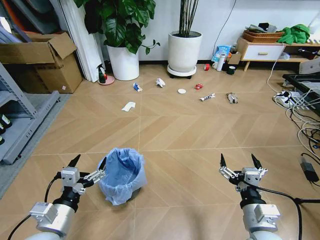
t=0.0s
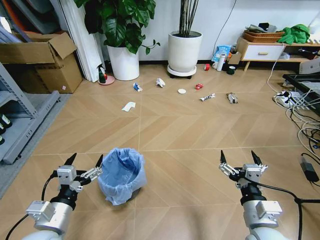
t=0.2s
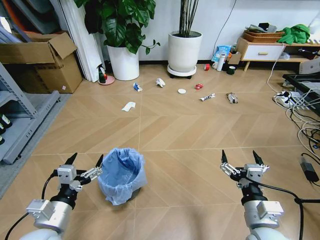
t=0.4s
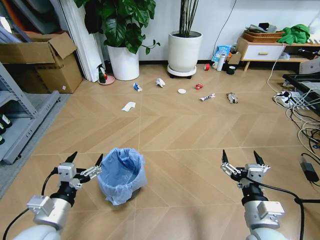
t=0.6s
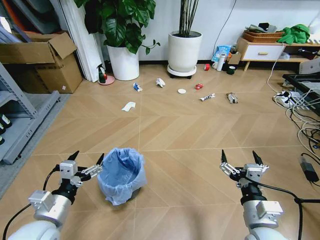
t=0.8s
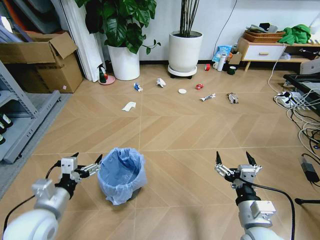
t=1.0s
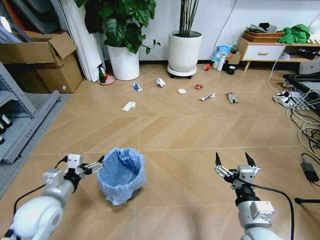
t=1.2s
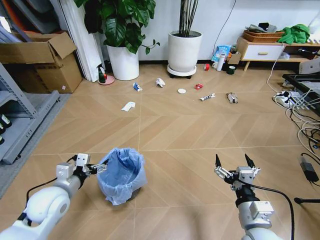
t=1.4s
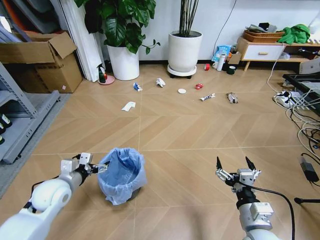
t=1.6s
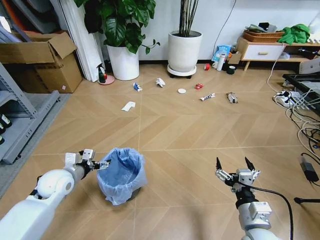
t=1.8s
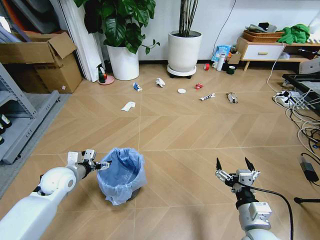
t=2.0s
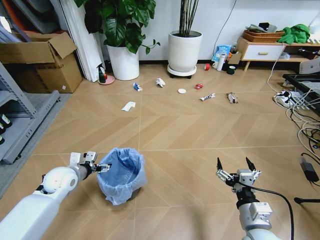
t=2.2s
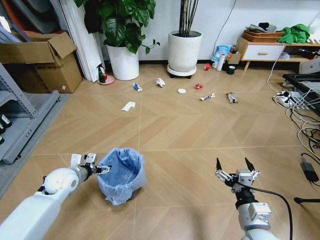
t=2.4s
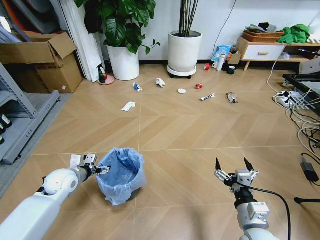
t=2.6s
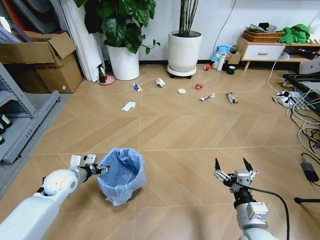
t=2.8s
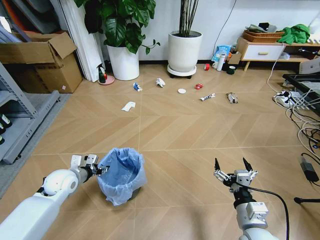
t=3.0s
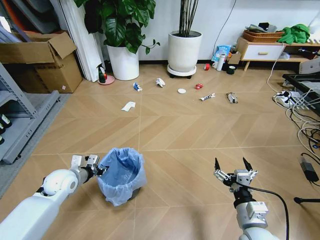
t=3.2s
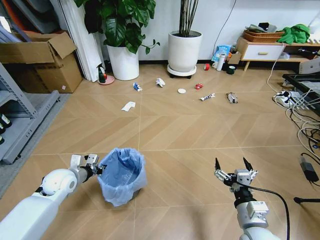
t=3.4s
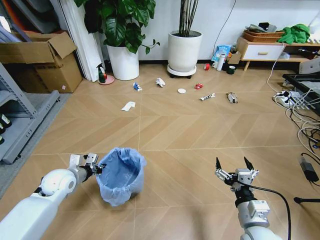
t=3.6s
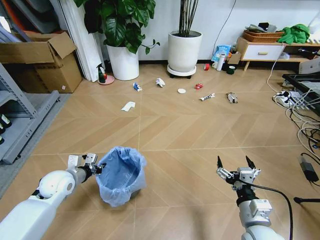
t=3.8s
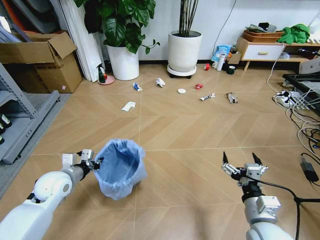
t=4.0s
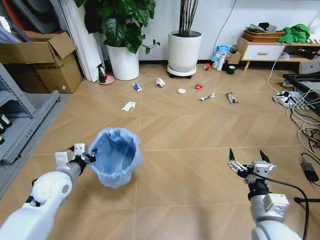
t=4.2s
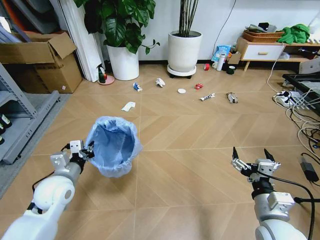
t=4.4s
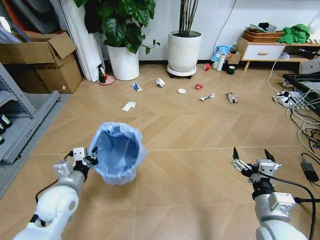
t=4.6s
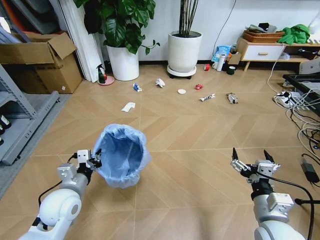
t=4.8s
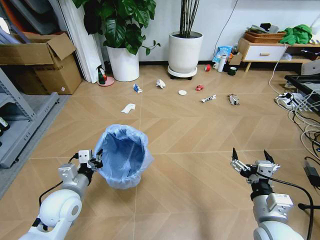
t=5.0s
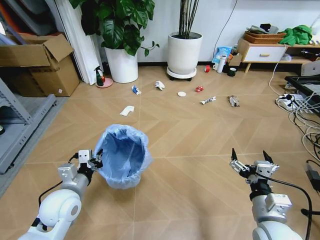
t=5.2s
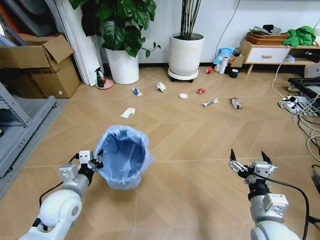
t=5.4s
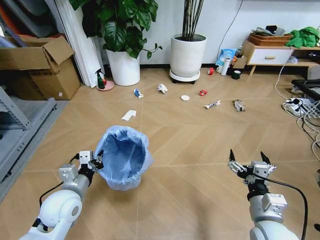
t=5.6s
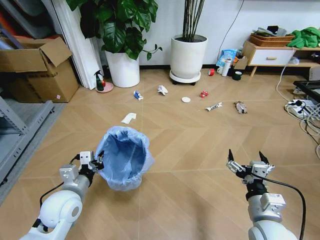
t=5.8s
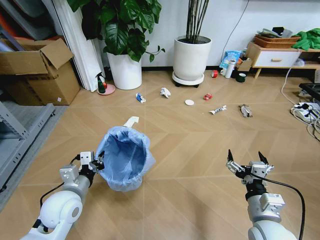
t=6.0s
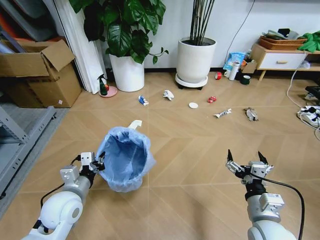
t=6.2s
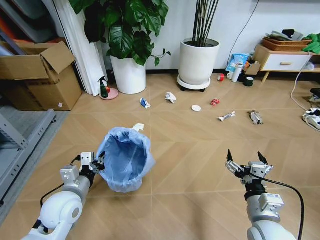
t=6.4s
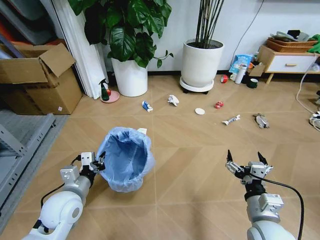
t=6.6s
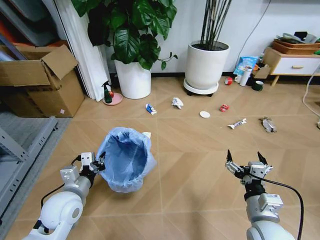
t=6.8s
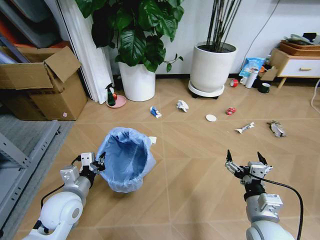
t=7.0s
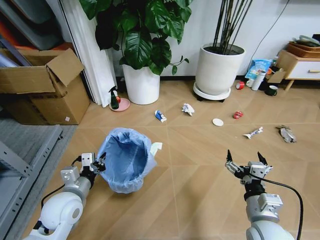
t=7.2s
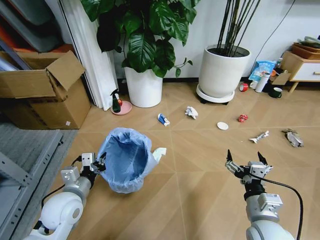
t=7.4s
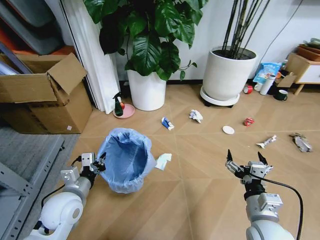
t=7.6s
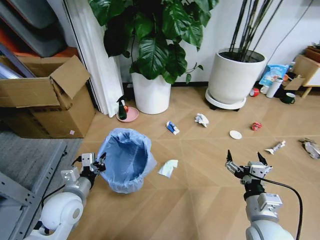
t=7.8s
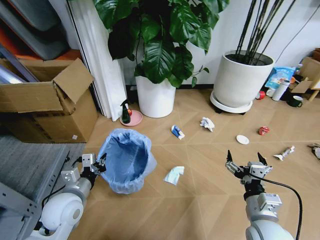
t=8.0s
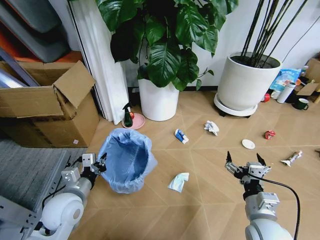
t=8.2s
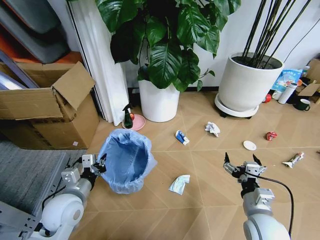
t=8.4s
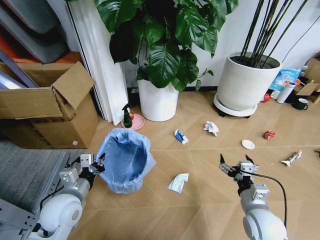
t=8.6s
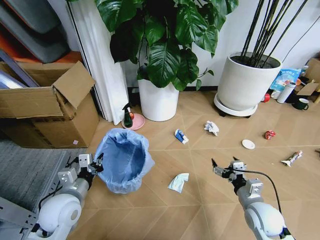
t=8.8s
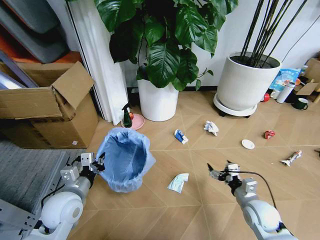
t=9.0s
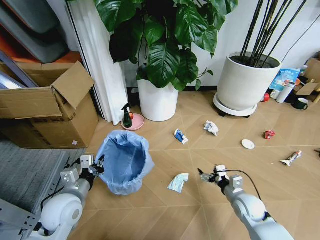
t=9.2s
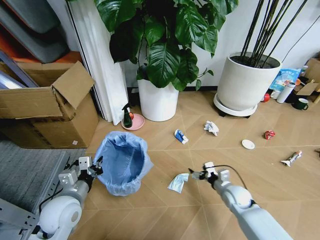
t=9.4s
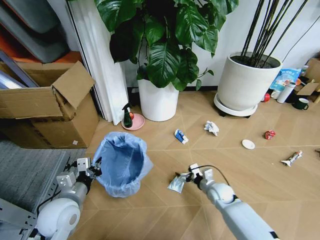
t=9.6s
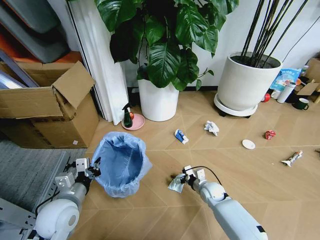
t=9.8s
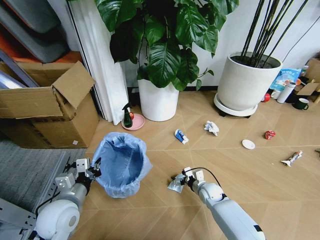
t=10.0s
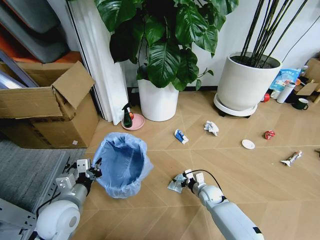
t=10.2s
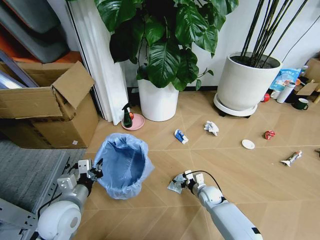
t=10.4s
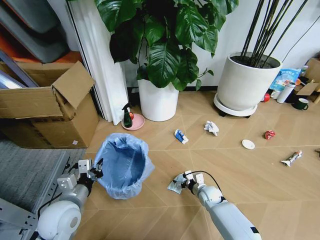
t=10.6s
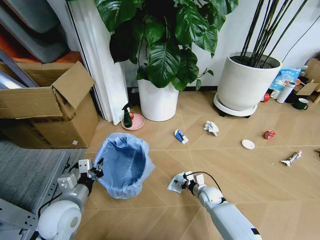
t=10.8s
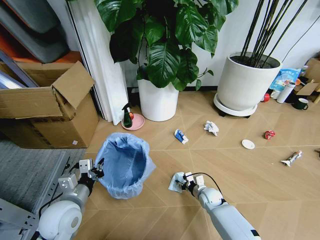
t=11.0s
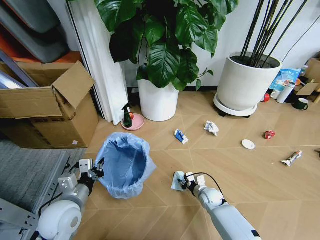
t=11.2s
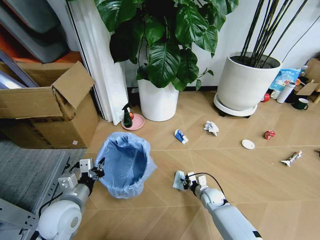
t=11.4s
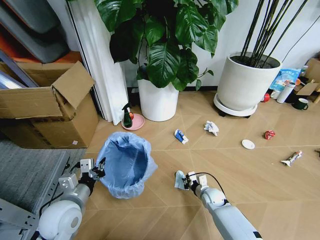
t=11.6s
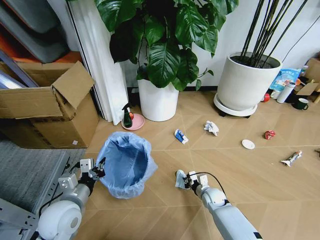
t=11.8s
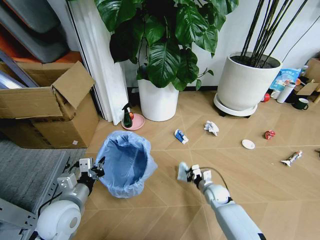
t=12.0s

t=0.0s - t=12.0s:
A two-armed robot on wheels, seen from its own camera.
Task of the whole recording: Pick up the trash bin and place the garbage on the floor into it.
t=1.6s - t=3.0s: The left gripper travels forward by about 5 cm, and closes.
t=3.0s - t=4.4s: The left gripper moves upward and backward, approximately 10 cm, and closes; the right gripper moves roughly 5 cm.
t=4.4s - t=6.0s: The left gripper shifts by approximately 5 cm.
t=7.6s - t=9.0s: The right gripper moves downward, forward and to the right, some 15 cm.
t=9.0s - t=10.4s: The right gripper shifts about 20 cm downward, to the left and forward.
t=10.4s - t=12.0s: The right gripper closes up.

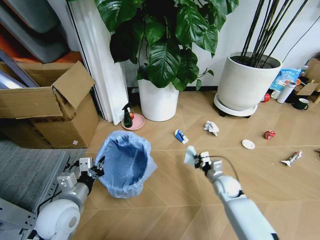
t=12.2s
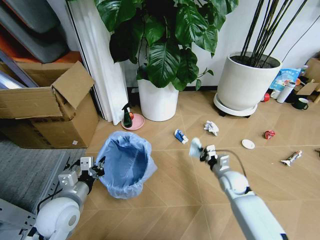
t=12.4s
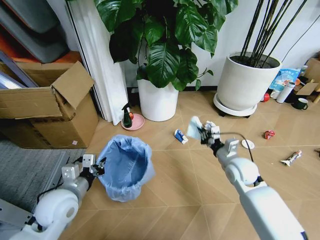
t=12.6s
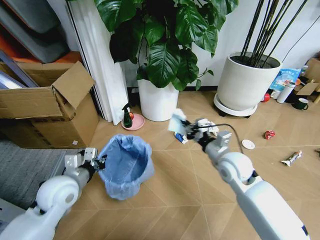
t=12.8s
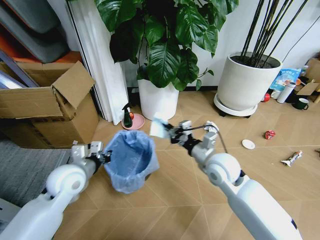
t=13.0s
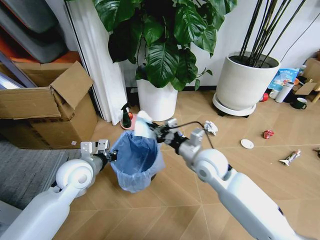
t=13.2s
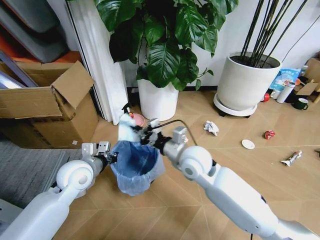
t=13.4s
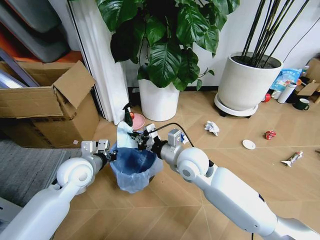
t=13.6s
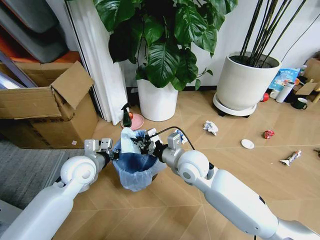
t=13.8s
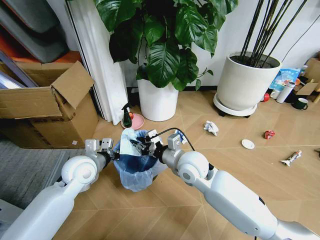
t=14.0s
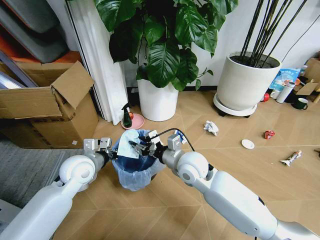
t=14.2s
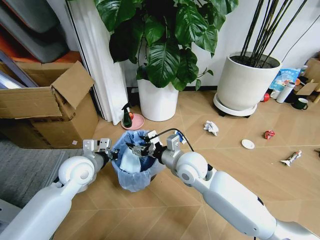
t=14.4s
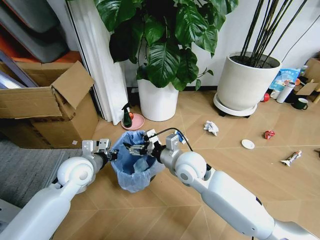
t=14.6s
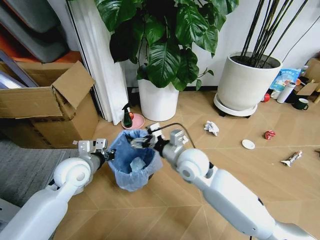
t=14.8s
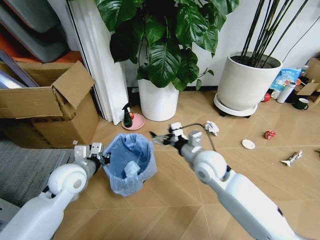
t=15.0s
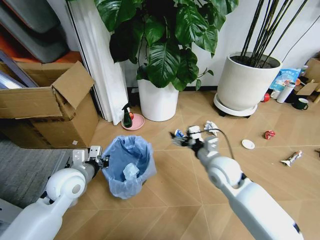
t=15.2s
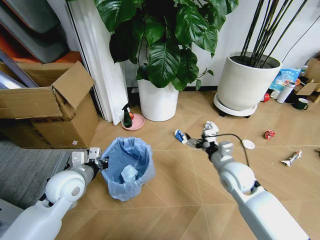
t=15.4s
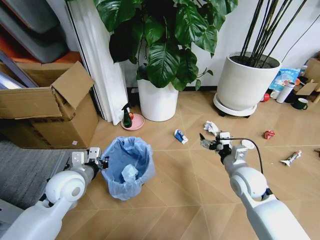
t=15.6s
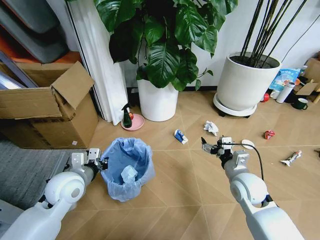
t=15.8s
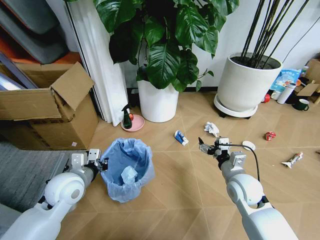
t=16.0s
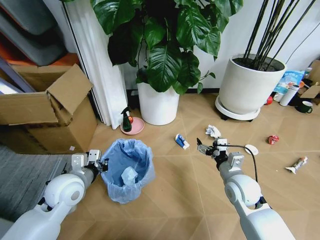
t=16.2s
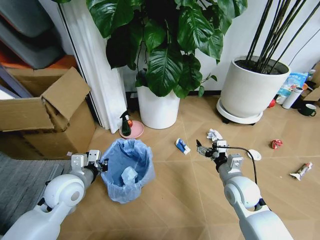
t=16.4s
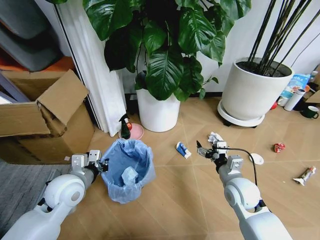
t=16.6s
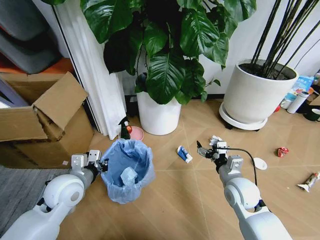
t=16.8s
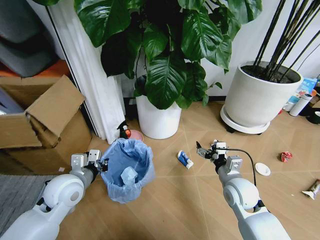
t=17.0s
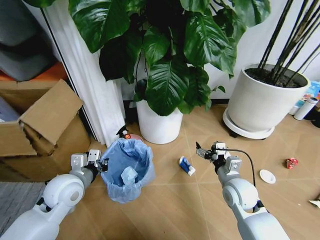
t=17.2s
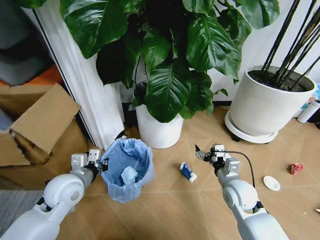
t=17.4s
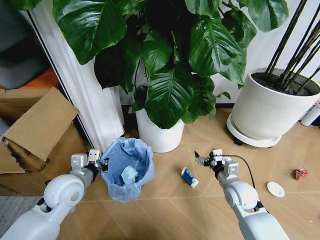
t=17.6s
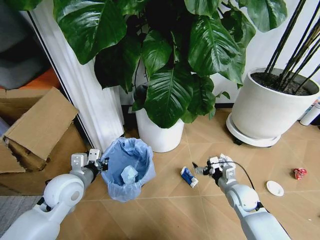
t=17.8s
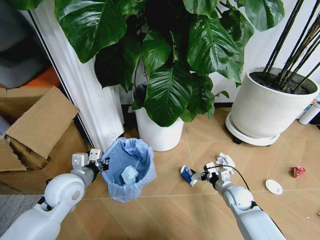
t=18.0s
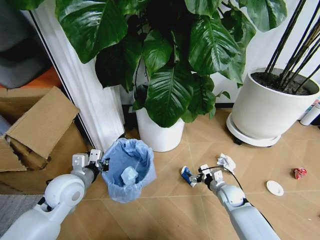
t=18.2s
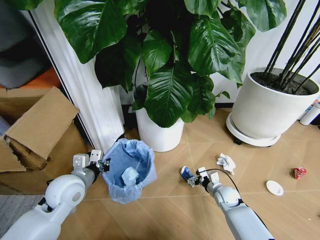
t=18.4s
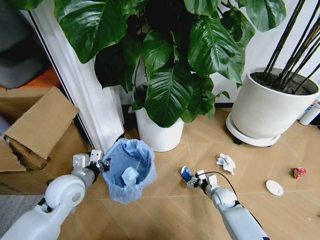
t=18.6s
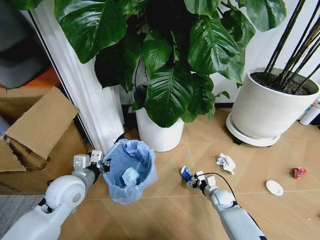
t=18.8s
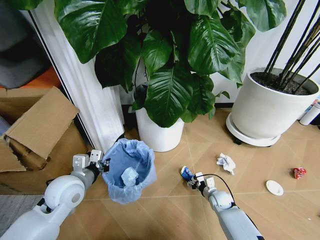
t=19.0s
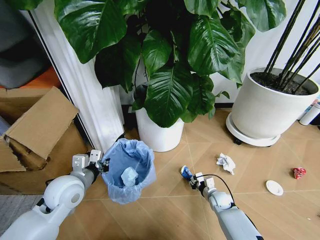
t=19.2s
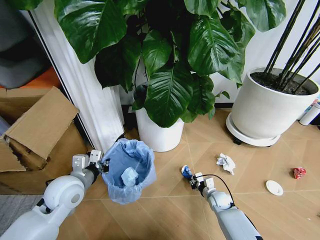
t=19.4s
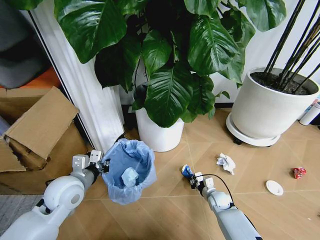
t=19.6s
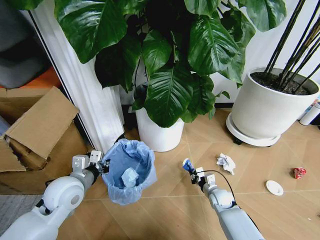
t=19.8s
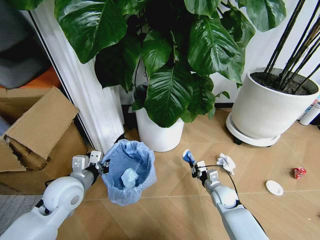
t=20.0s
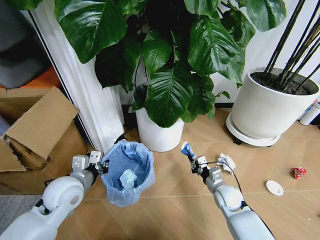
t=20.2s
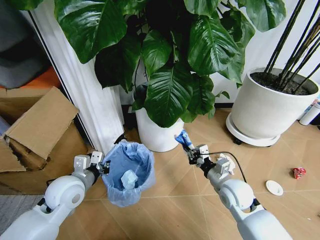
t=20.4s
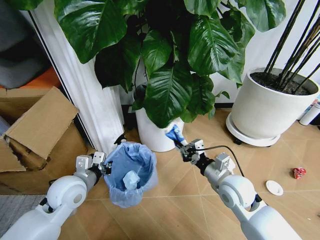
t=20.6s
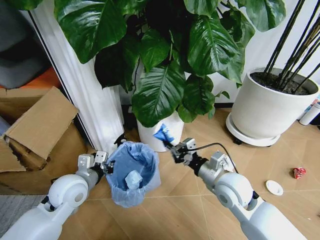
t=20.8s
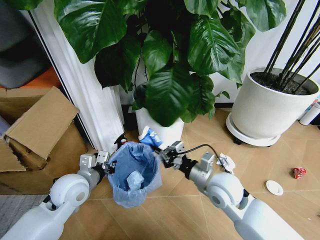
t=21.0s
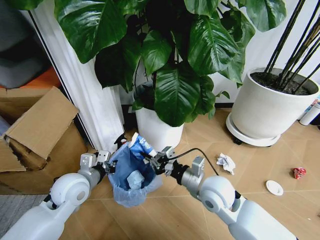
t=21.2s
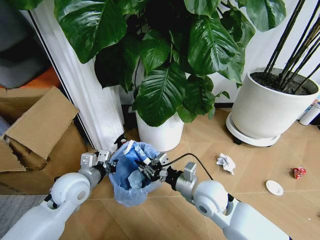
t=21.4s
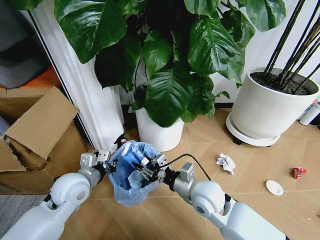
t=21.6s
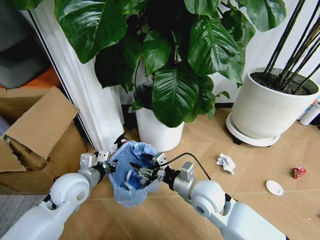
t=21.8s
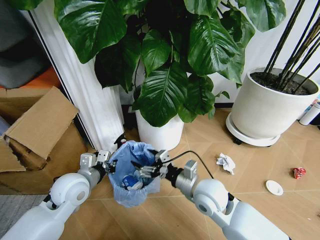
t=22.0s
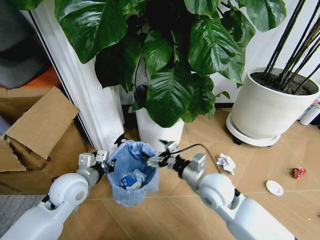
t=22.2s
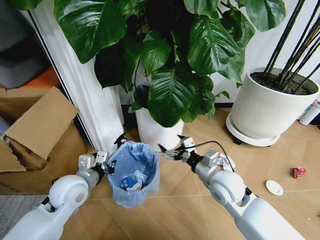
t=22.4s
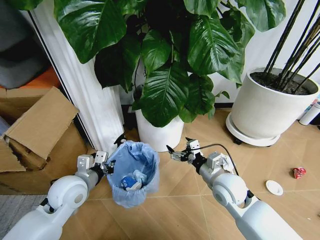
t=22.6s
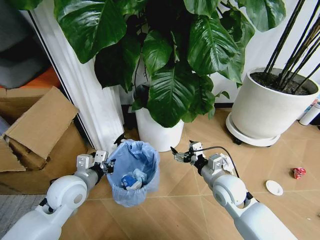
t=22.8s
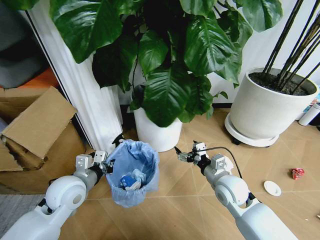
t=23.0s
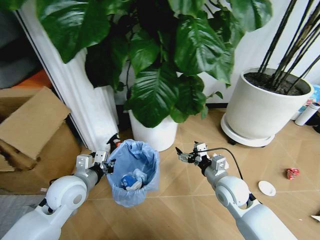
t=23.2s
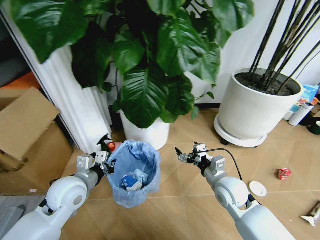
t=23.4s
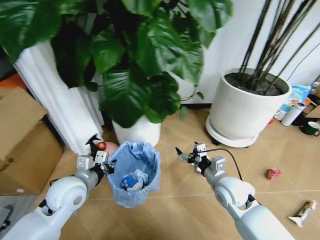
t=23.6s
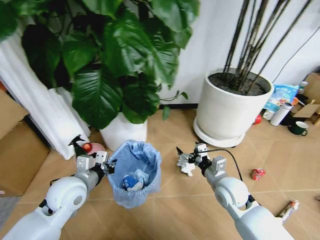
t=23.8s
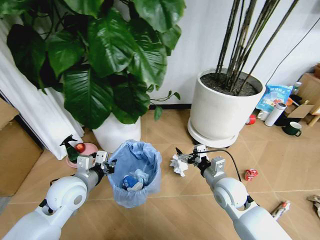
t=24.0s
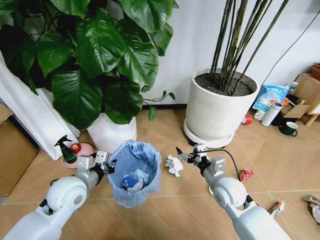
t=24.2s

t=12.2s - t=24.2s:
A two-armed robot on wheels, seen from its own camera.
Task of the whole recording: Pick up the trash bin and place the garbage on the floor into it.
t=12.2s - t=13.8s: The left gripper shifts some 10 cm forward. The right gripper goes approximately 25 cm upward and to the left.
t=13.8s - t=15.2s: The right gripper travels to the right by roughly 10 cm, and opens.
t=15.2s - t=16.6s: The right gripper heads to the right and downward, covering roughly 10 cm.
t=16.6s - t=18.2s: The right gripper shifts roughly 15 cm downward.
t=18.2s - t=19.8s: The right gripper closes its fingers.
t=19.8s - t=21.2s: The right gripper heads upward and to the left, covering some 25 cm.
t=21.2s - t=22.6s: The right gripper is displaced to the right by roughly 5 cm, and opens.
